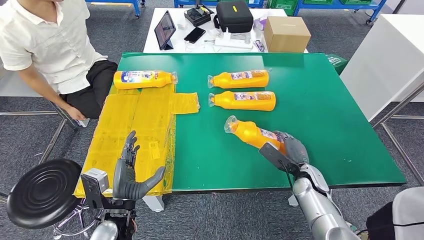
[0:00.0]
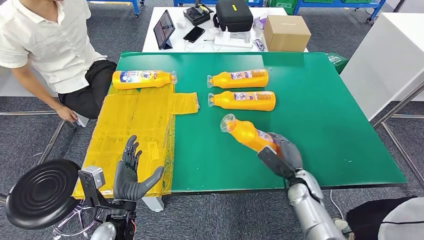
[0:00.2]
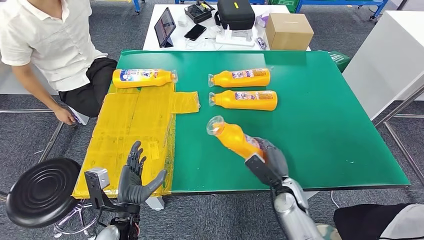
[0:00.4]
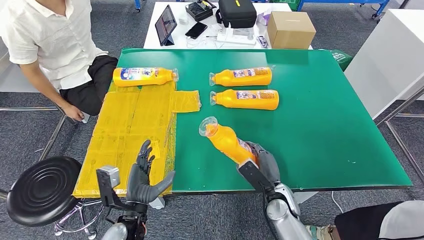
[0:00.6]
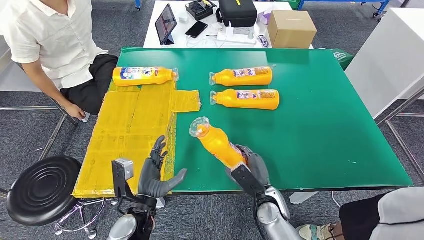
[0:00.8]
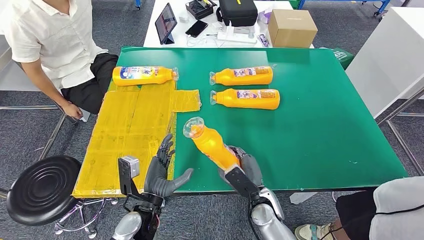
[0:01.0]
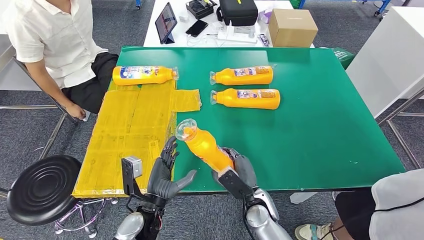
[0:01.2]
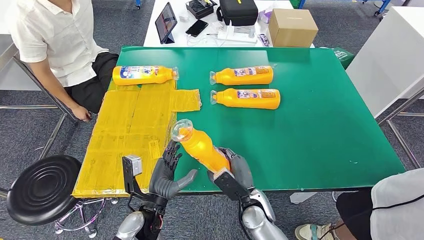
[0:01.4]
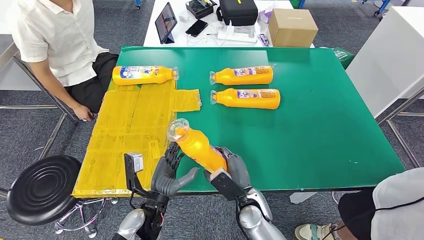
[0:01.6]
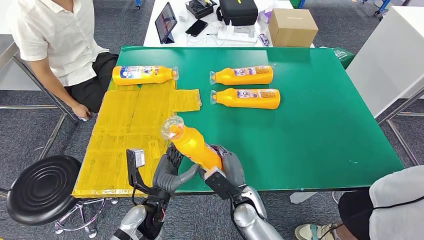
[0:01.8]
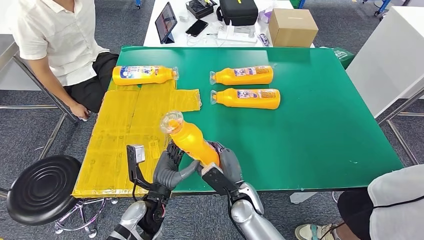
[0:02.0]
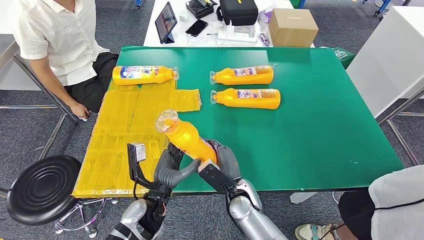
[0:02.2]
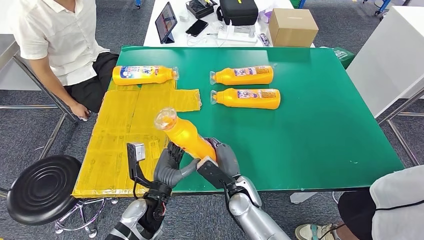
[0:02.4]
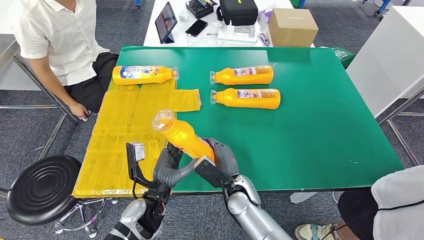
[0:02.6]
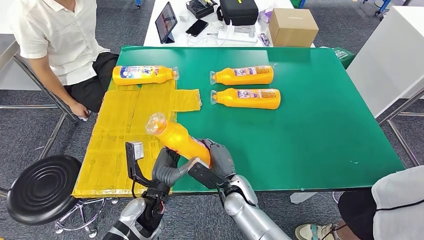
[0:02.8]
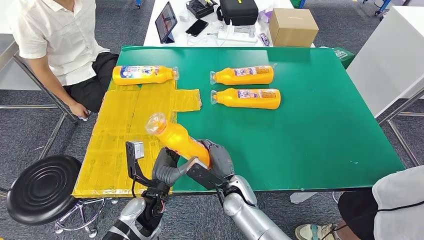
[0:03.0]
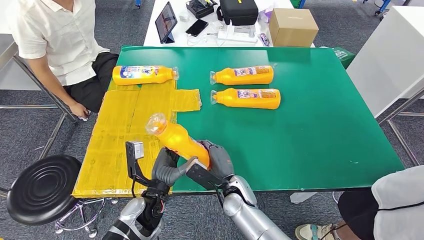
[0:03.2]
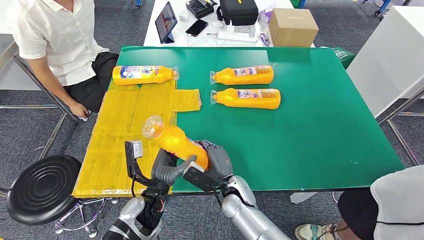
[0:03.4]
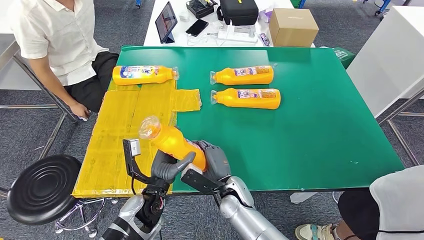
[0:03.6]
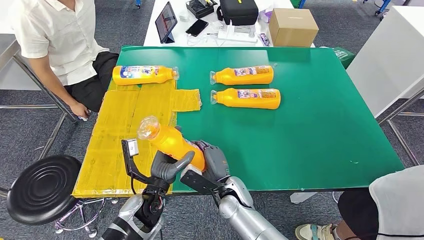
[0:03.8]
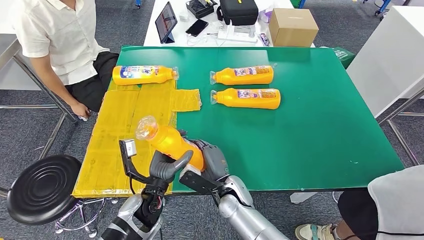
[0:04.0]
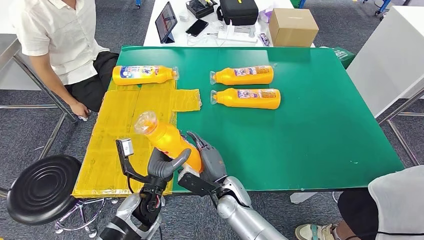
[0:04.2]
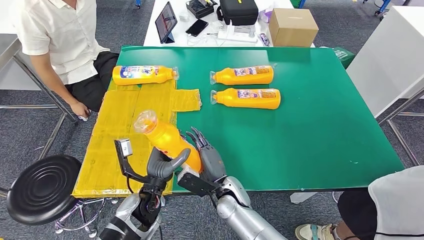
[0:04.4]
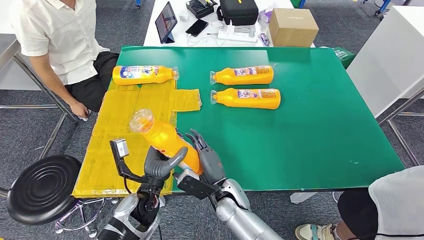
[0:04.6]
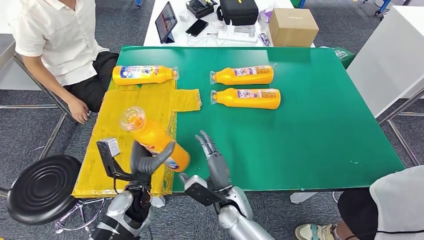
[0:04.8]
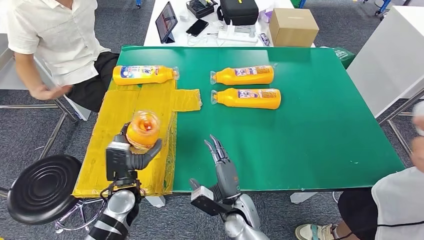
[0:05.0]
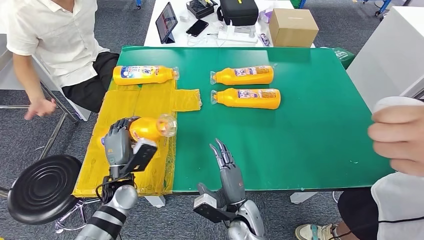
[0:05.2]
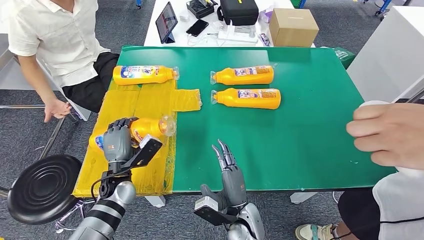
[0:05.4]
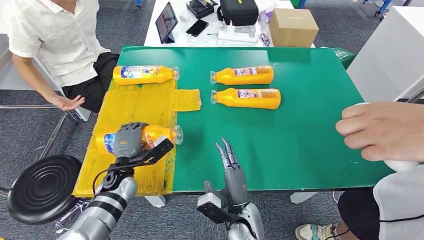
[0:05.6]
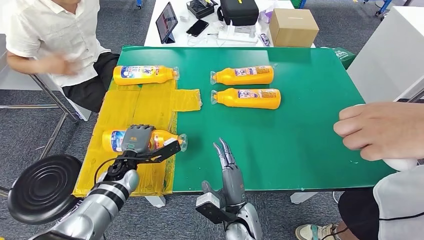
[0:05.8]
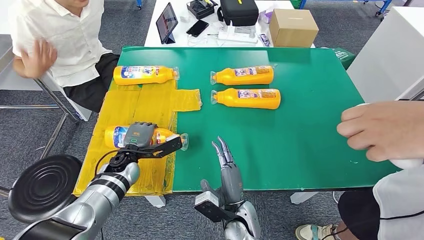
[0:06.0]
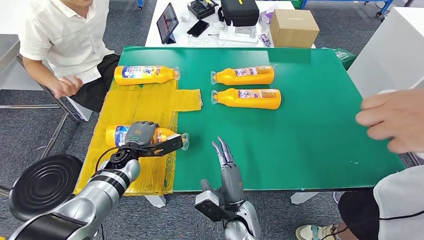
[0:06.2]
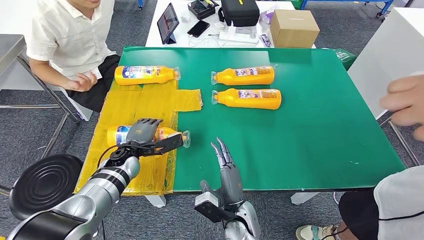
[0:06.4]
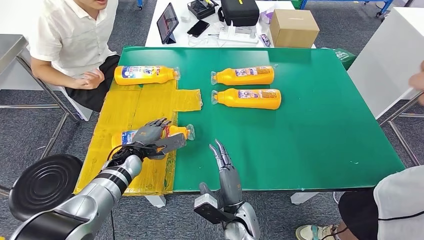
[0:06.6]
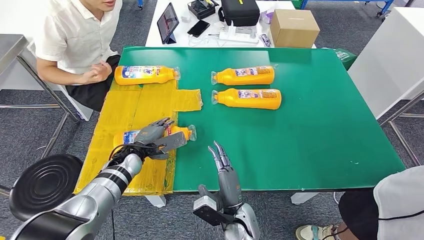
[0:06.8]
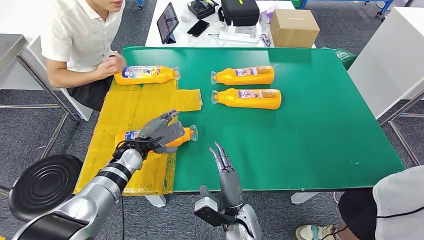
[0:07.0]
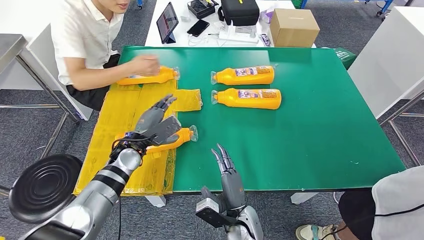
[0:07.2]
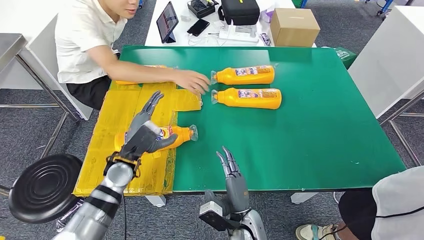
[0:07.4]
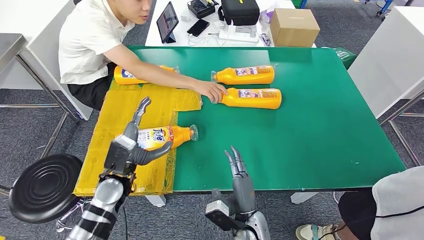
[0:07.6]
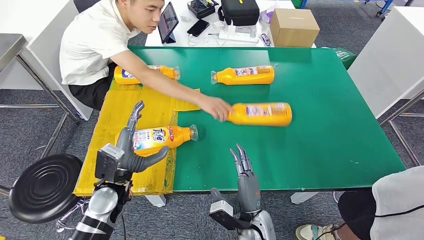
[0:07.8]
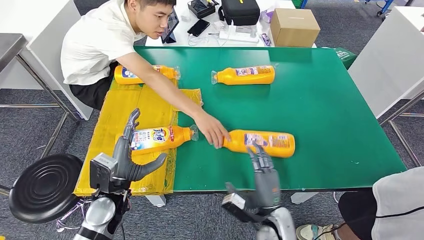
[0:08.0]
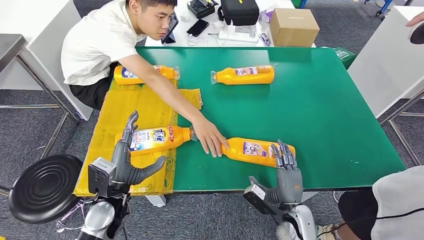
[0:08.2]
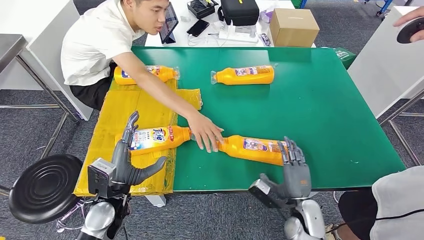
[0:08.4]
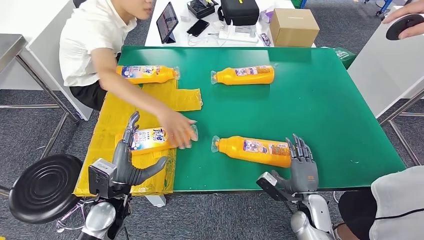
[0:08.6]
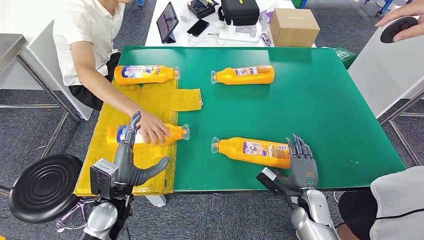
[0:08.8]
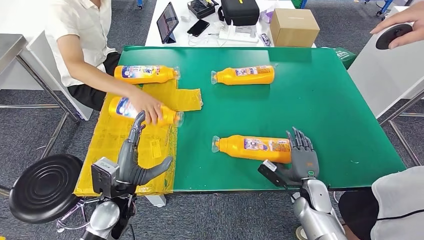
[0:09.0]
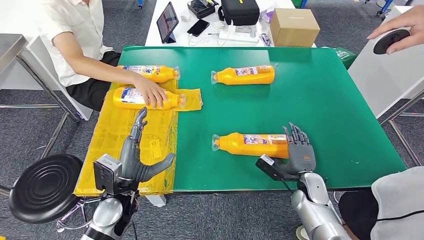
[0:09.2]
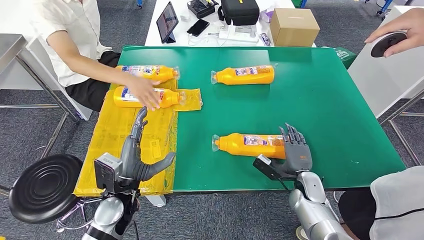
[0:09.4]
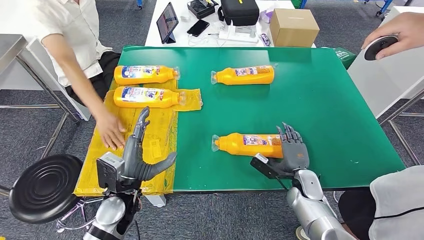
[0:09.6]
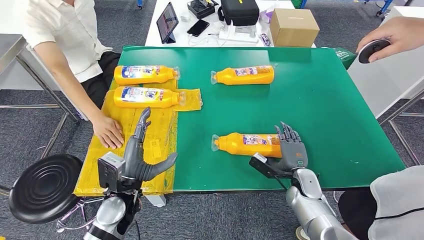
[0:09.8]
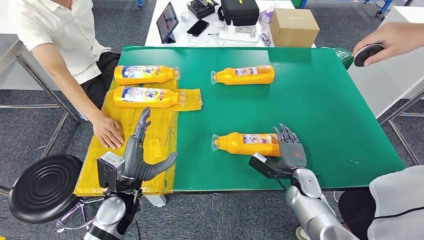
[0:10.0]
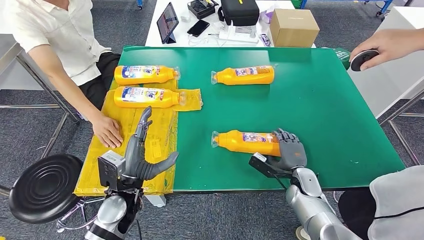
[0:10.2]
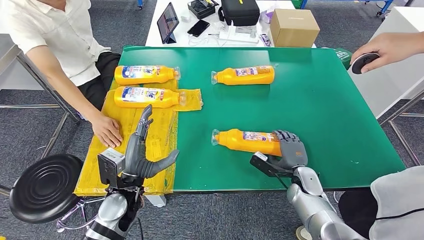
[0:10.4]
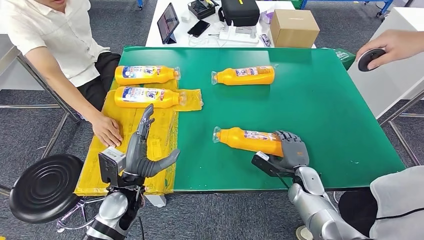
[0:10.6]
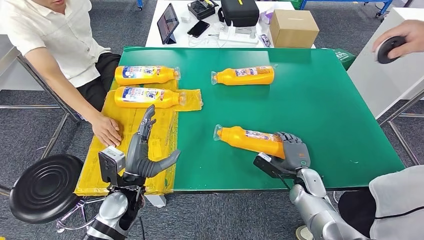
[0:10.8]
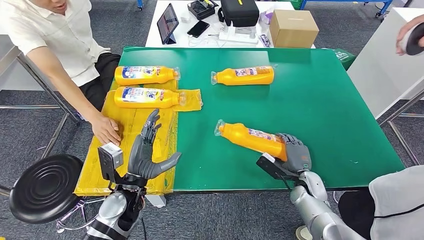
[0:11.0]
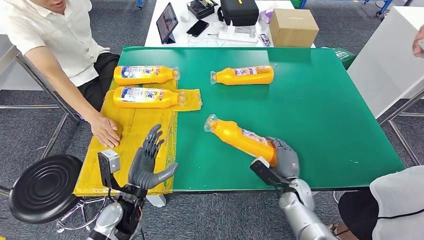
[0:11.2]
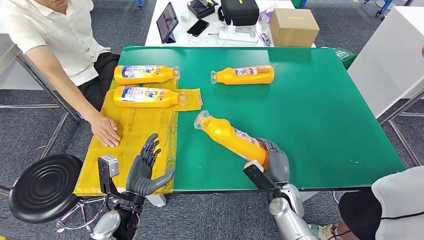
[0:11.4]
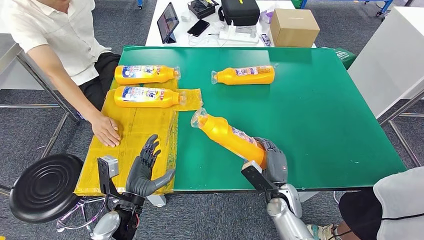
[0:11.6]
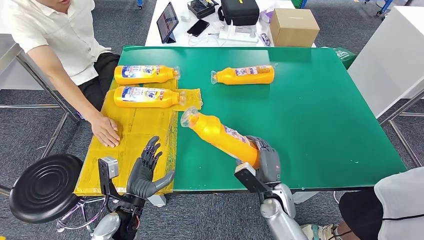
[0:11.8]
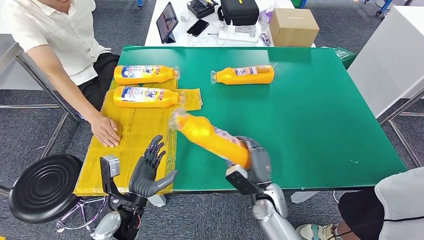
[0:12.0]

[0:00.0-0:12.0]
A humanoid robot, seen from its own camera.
Step, 0:01.2 to 0:08.0: Flip the bottle to face forward.
0:01.6 to 0:03.0: The right hand ends up about 5 cm from where it was.
0:03.0 to 0:04.4: The hands stay close to where they were, moving slightly.
0:09.0 to 0:10.4: The hands make only small movements.
0:10.4 to 0:12.0: The right hand shifts roughly 15 cm to the left, while the left hand shifts by some 5 cm.

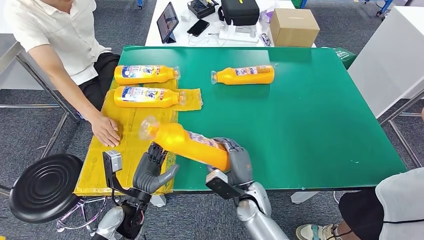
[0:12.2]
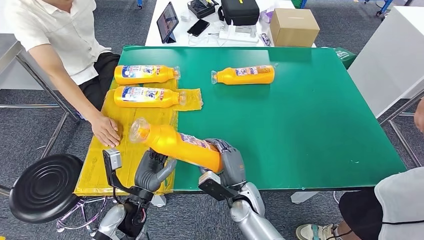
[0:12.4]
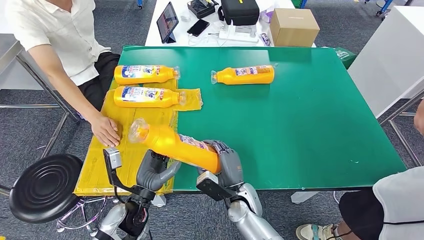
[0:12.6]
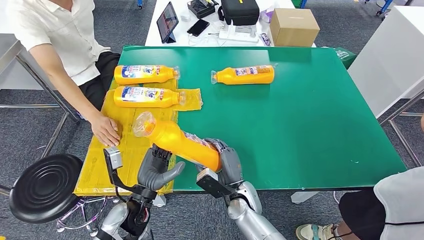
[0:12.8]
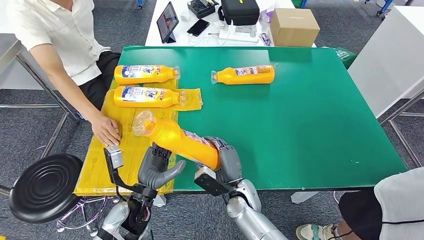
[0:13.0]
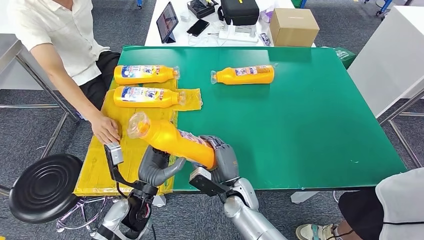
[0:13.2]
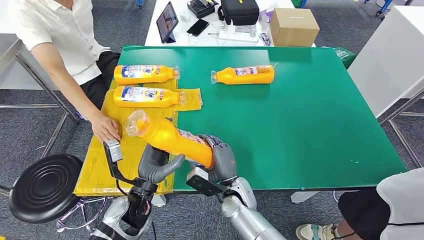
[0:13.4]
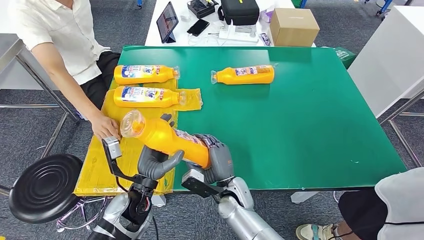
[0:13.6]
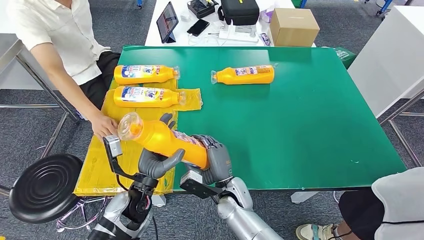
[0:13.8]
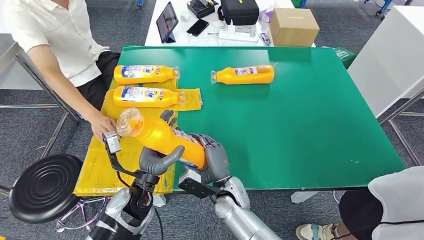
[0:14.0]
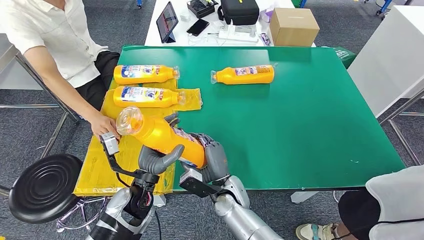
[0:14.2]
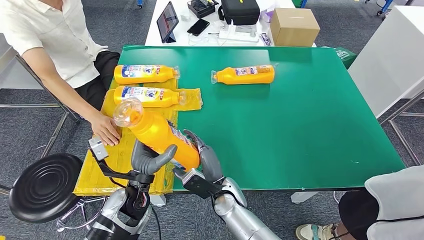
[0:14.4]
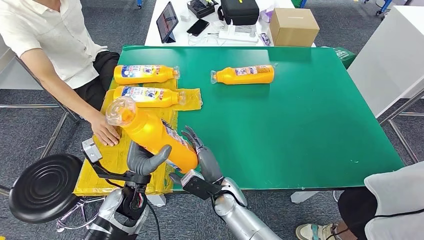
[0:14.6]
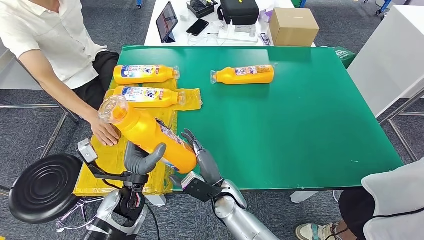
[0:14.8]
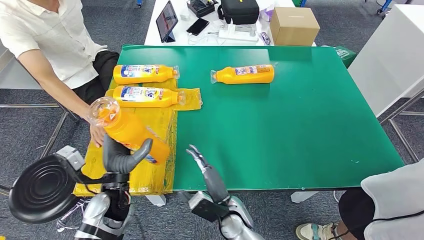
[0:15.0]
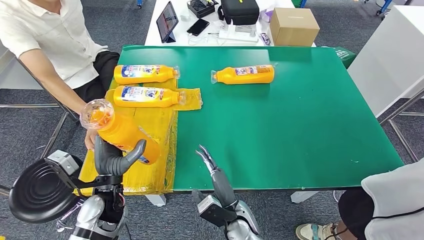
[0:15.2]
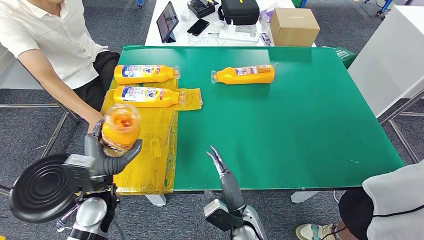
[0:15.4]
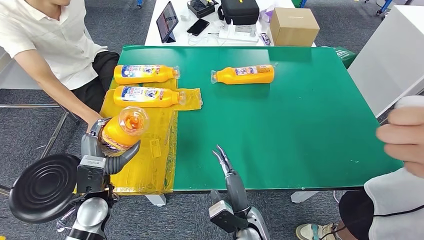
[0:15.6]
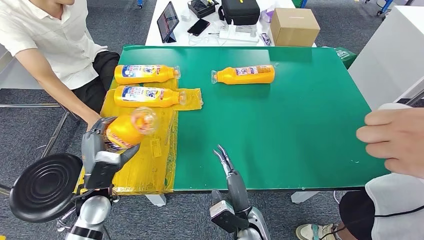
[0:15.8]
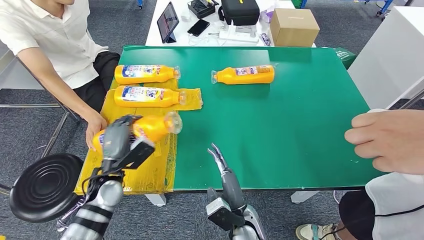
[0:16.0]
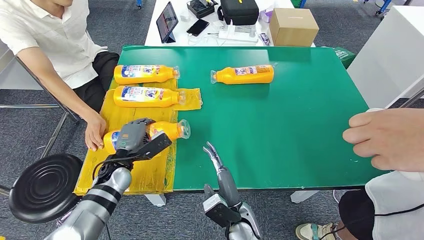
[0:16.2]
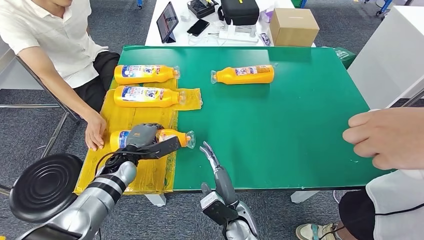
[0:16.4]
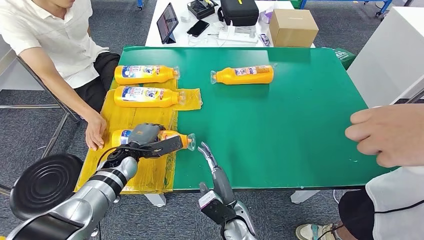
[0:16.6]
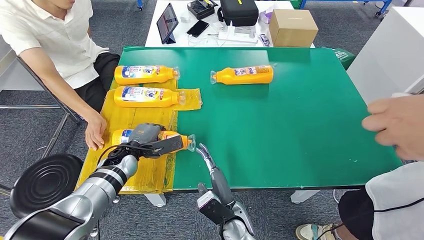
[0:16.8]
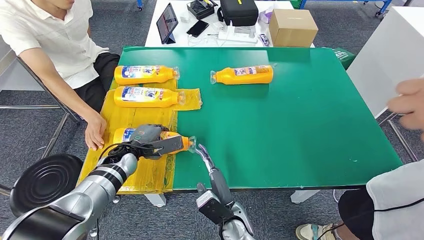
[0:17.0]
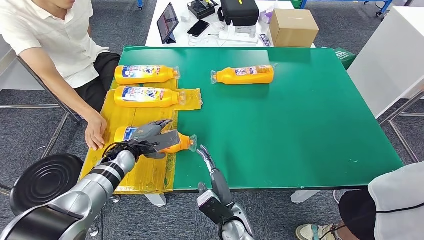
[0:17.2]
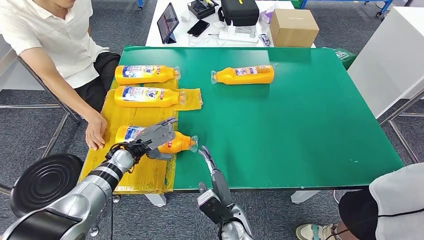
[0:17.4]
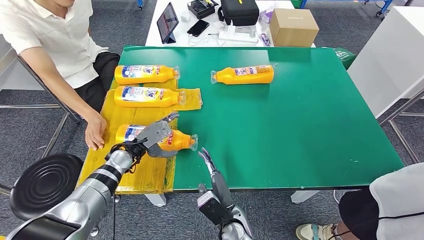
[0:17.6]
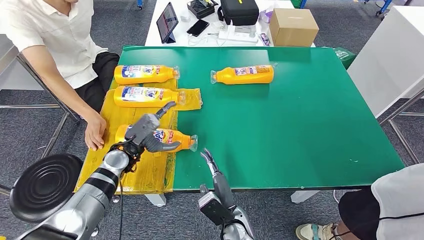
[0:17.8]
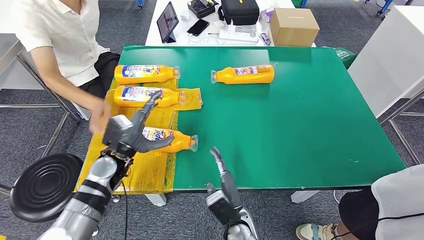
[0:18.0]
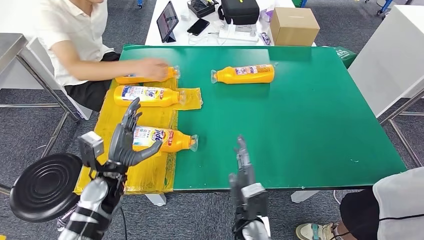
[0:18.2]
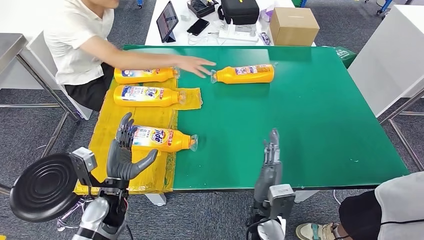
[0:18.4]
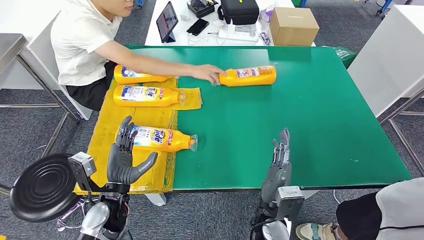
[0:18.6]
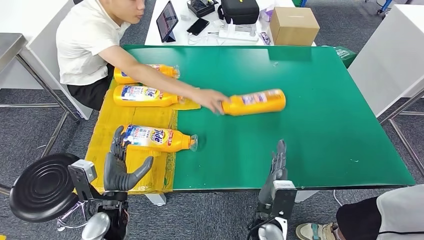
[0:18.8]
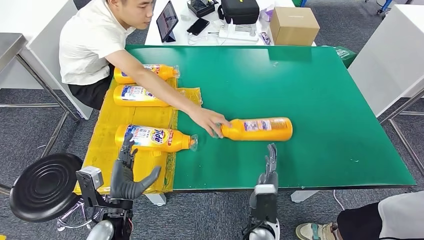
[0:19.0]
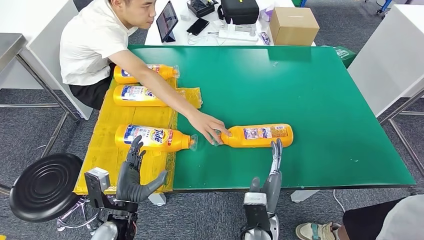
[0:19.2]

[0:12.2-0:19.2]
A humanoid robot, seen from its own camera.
Step, 0:13.0 to 0:18.8: Flip the bottle to face forward.
0:12.2 to 0:13.6: The right hand travels to the left by some 5 cm.
